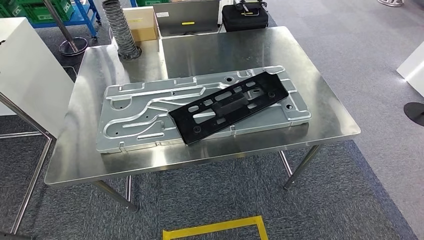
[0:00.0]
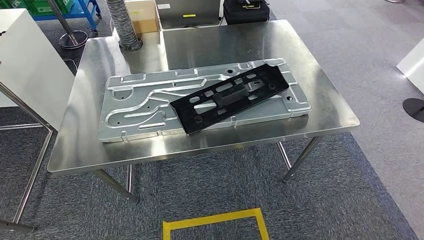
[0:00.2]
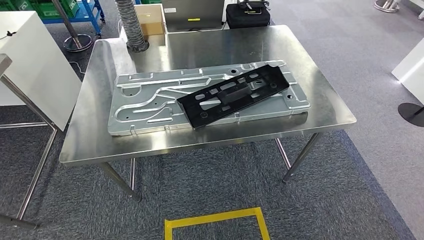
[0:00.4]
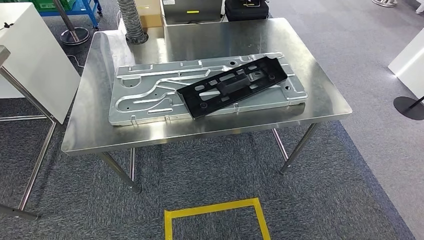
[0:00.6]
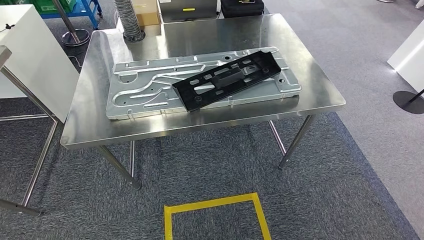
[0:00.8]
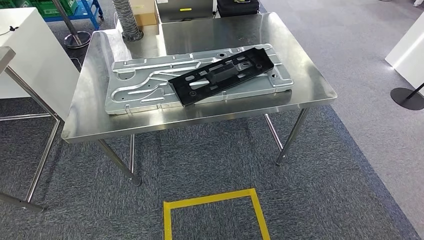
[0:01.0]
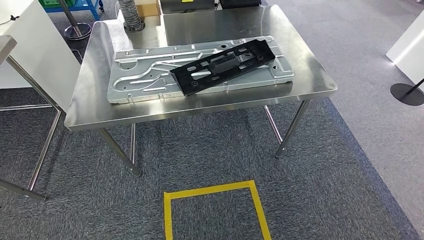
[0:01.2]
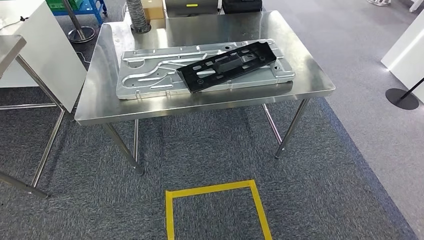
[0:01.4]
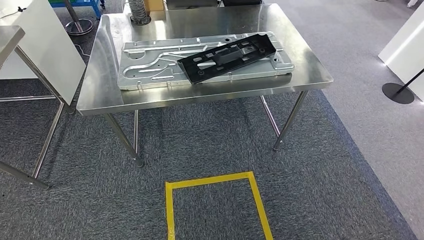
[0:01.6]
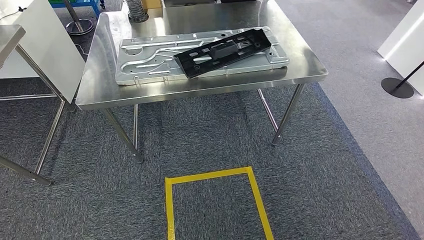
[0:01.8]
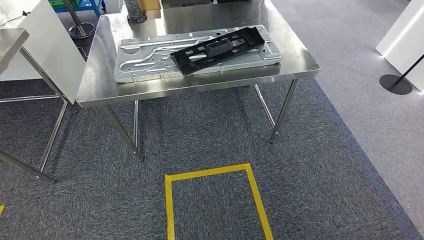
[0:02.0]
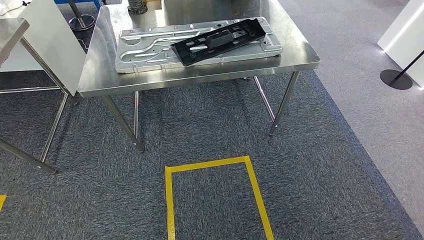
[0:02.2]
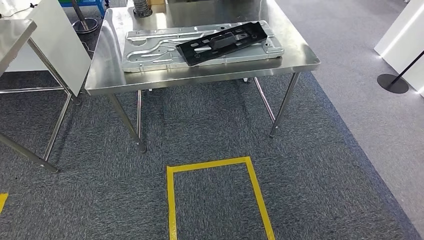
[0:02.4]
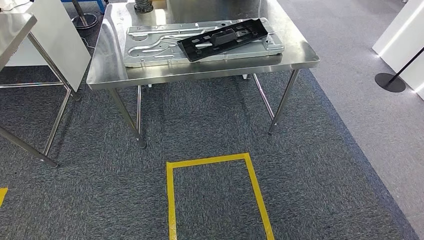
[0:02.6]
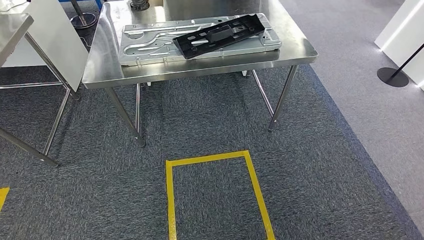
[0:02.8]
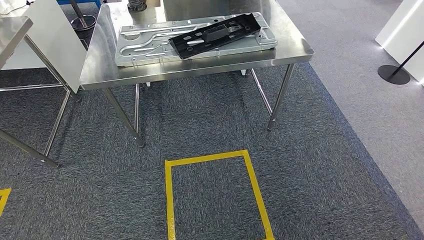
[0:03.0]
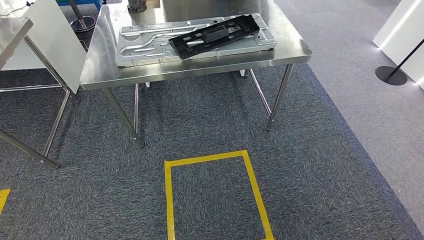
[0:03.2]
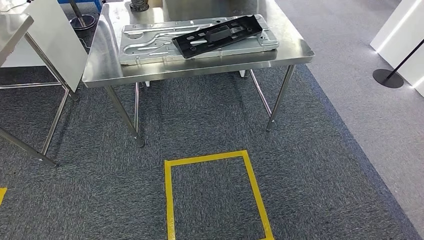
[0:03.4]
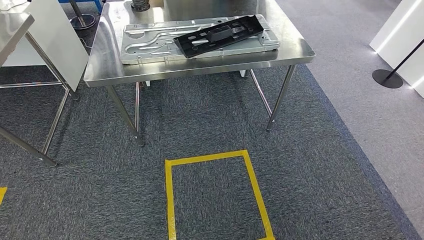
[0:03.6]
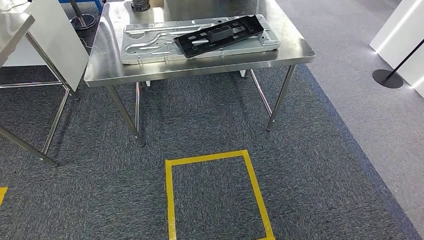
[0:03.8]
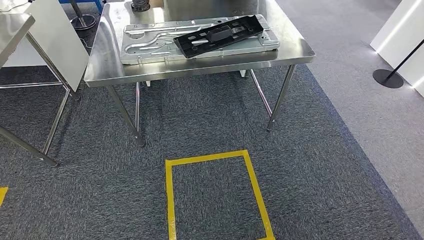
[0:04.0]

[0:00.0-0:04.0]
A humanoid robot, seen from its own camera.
Step, 0:00.0 to 0:03.8: Return to the initial position at the shelf.
0:02.6 to 0:04.0: There are only small adjustments of the hands.
